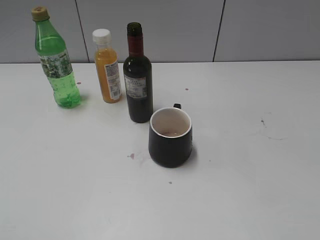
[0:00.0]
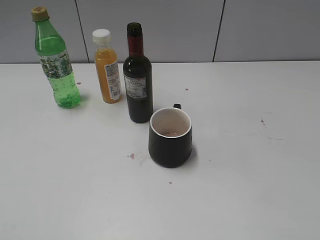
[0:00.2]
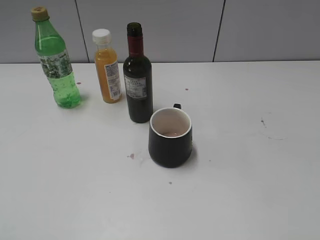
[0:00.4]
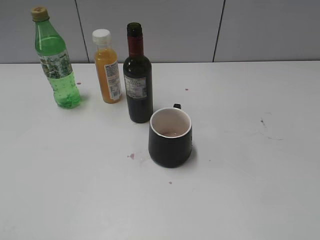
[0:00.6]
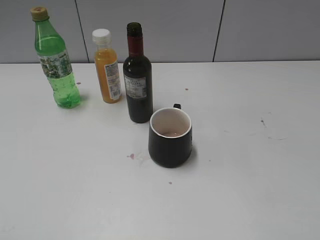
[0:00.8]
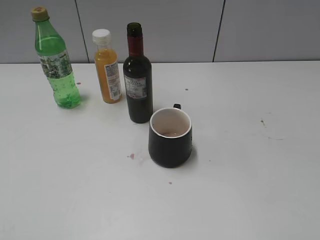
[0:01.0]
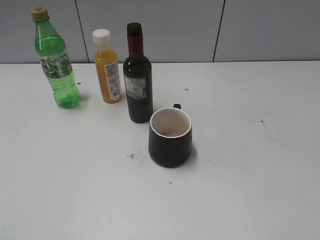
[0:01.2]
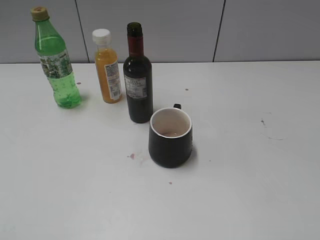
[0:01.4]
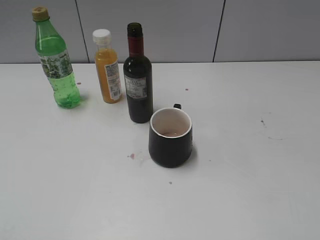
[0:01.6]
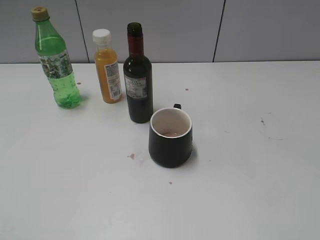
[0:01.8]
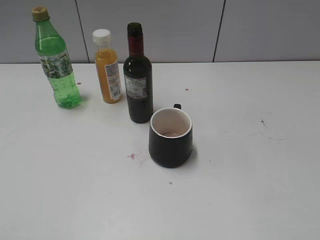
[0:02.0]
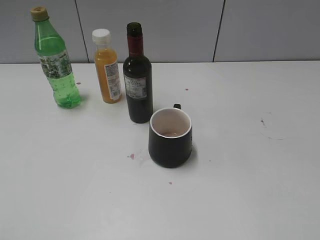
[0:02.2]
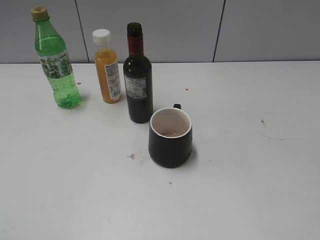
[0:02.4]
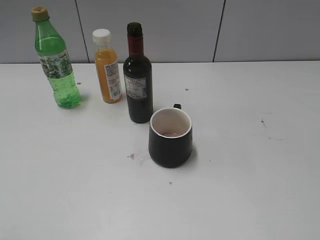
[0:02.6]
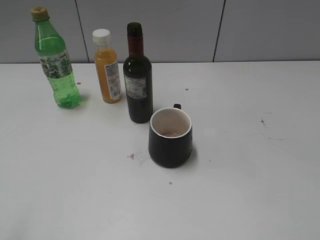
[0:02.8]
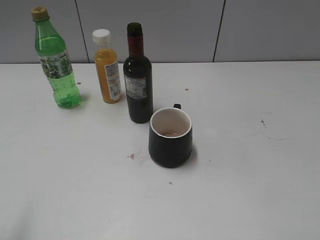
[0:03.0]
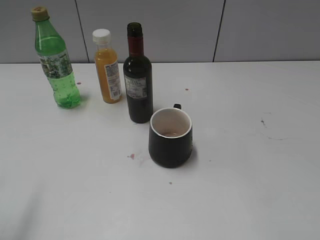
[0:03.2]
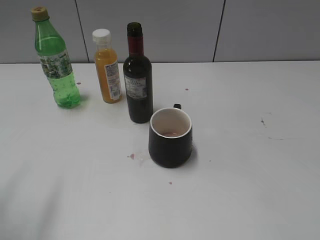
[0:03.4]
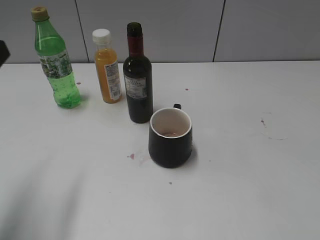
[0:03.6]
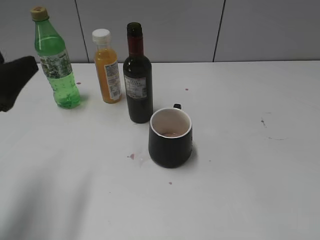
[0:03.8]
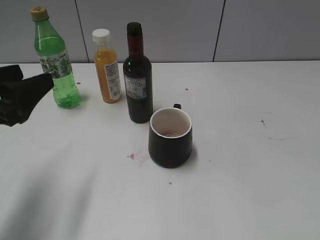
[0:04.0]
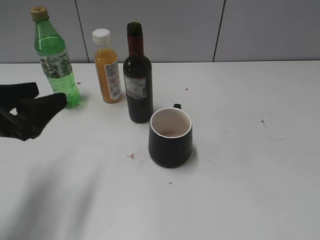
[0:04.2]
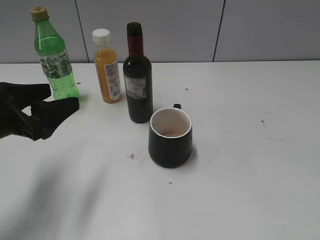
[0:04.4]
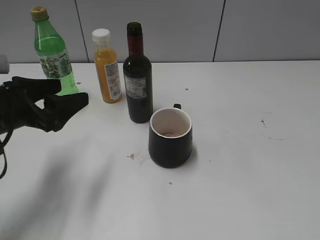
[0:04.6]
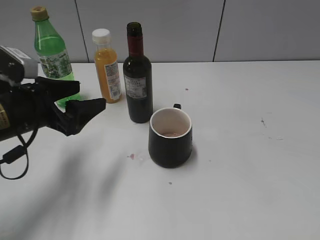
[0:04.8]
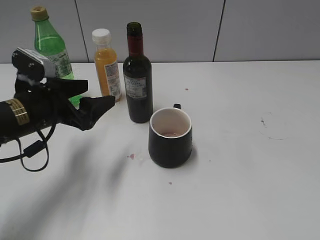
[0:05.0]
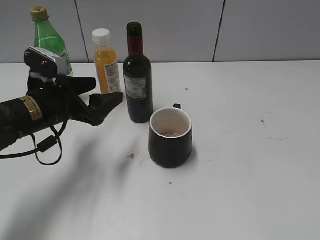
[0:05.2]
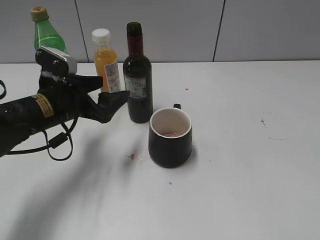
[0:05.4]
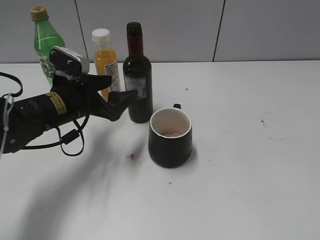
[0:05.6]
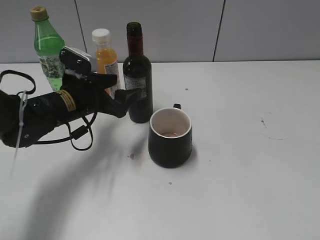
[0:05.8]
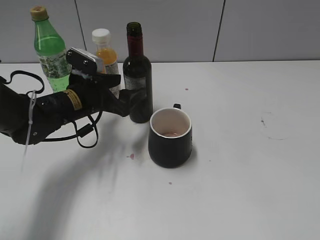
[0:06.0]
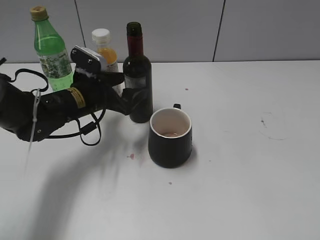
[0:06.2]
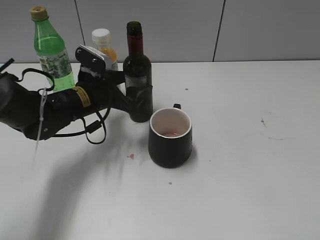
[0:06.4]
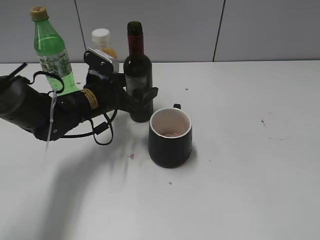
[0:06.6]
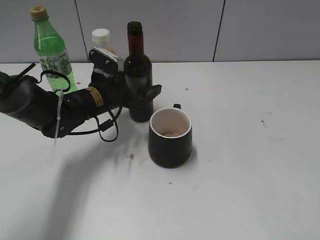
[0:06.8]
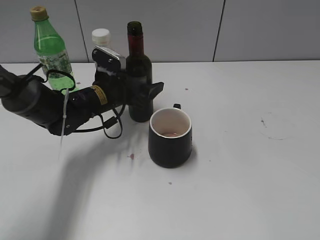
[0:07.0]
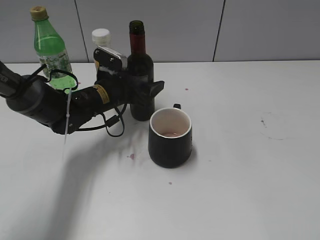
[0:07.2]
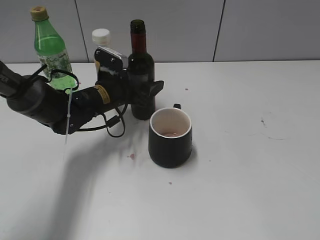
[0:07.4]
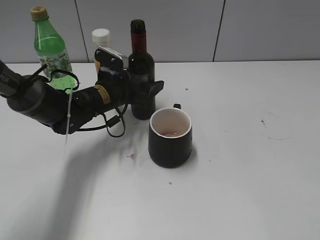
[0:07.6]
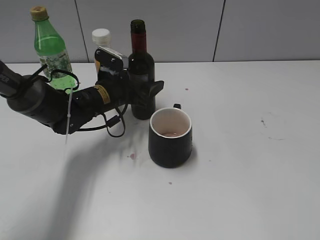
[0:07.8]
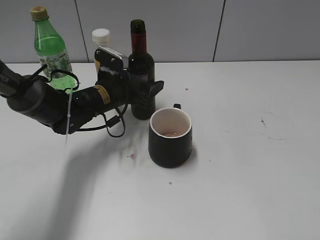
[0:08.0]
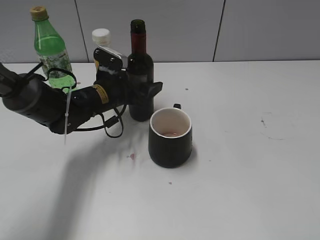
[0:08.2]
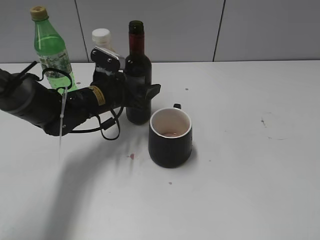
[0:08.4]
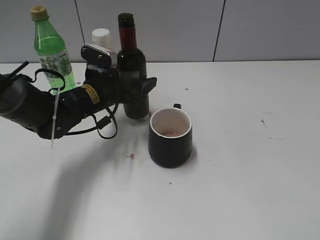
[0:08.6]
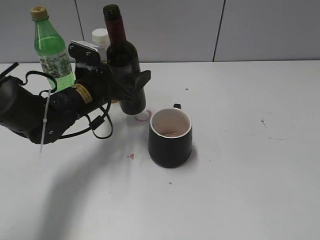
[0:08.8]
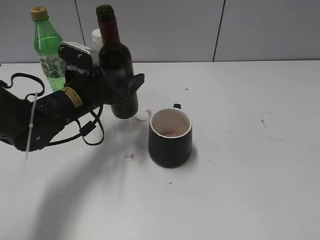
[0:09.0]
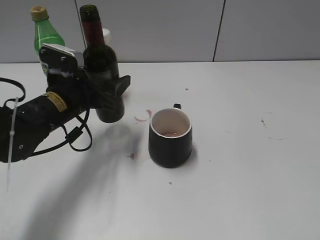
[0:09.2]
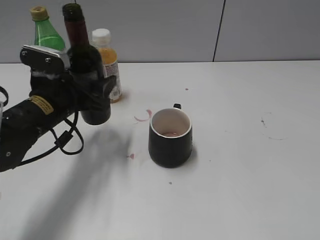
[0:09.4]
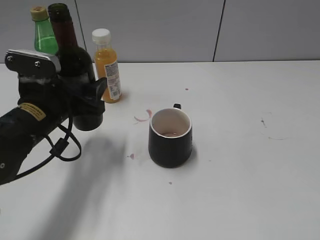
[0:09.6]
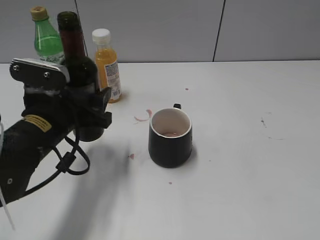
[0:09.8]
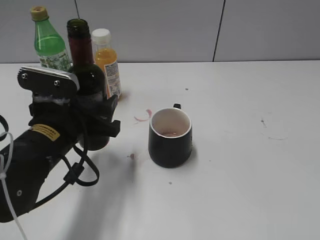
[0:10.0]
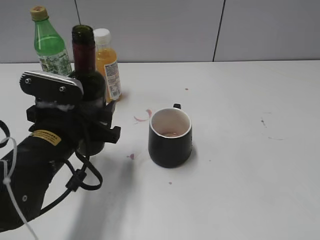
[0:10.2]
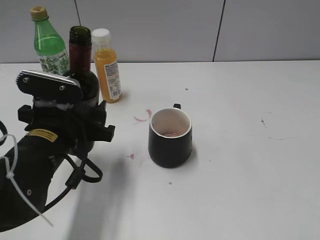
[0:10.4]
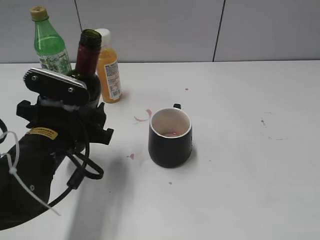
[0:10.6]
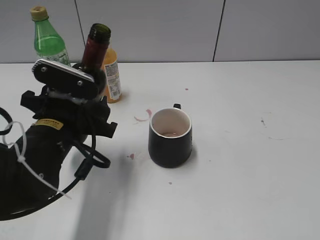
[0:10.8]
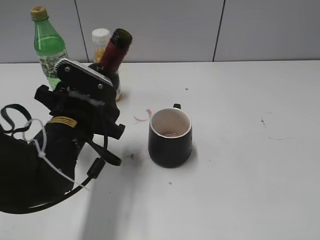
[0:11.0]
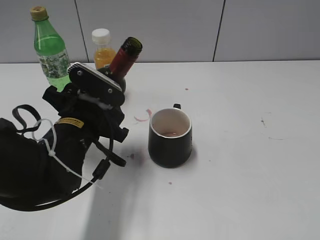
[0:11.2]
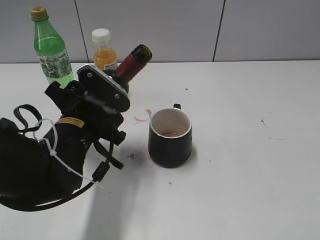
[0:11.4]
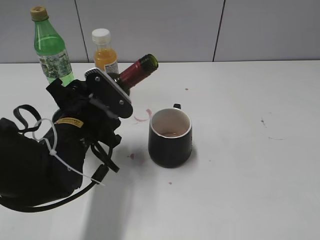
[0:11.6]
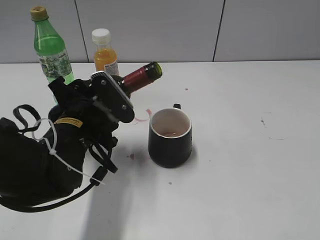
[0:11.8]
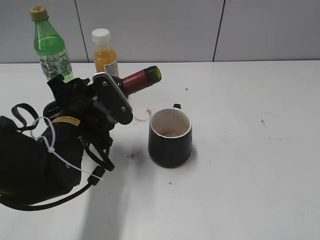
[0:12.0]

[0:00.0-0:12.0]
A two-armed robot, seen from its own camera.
Step, 0:00.0 to 0:08.2: Grasp the bottle with red wine with left gripper.
0:00.0 to 0:01.6: Neither gripper changes place.
0:03.0 to 0:04.4: The left gripper travels forward, downward and to the right by roughly 20 cm.
0:04.4 to 0:06.0: The left gripper shifts roughly 15 cm forward, to the right and downward.
0:06.0 to 0:07.6: The left gripper ends up roughly 5 cm from where it was, and closes up.
0:07.6 to 0:09.0: The left gripper is displaced backward by approximately 5 cm.
0:09.0 to 0:10.4: The left gripper is displaced backward by roughly 10 cm.

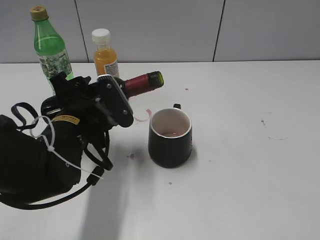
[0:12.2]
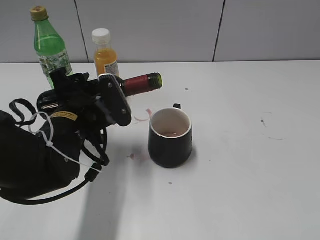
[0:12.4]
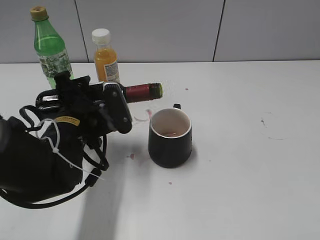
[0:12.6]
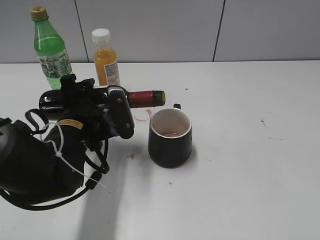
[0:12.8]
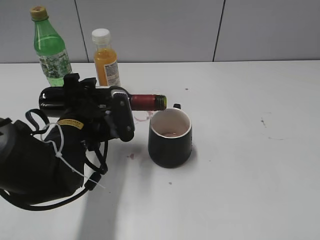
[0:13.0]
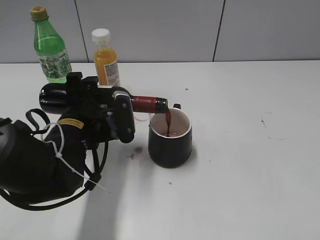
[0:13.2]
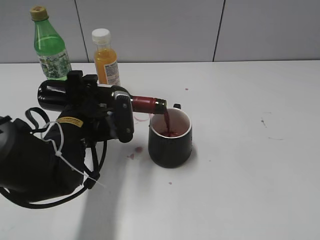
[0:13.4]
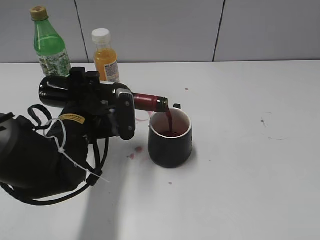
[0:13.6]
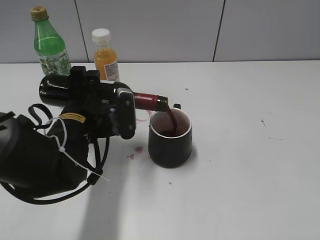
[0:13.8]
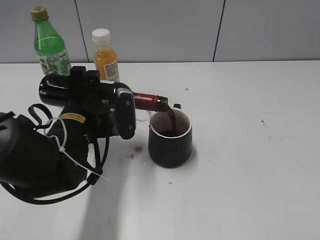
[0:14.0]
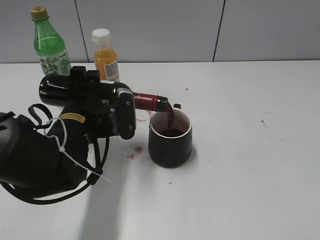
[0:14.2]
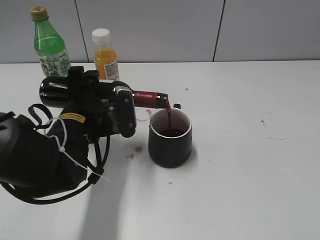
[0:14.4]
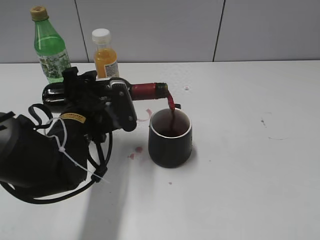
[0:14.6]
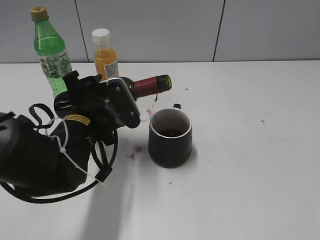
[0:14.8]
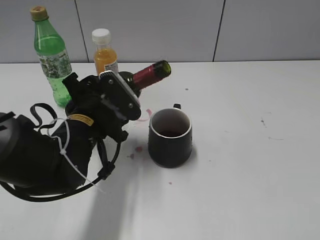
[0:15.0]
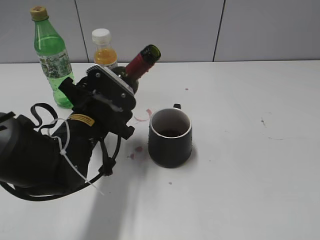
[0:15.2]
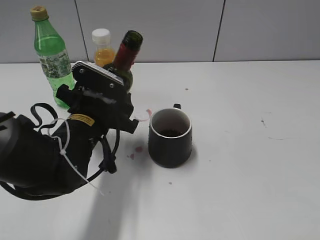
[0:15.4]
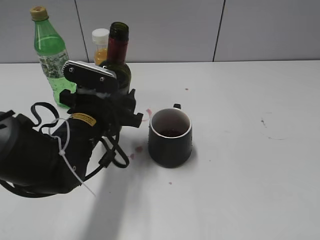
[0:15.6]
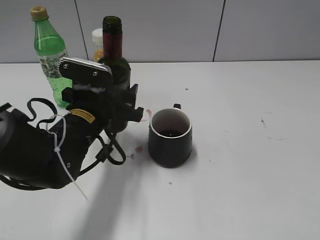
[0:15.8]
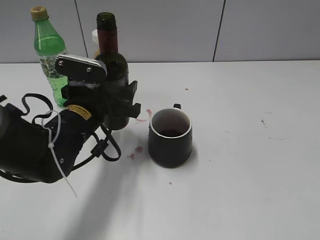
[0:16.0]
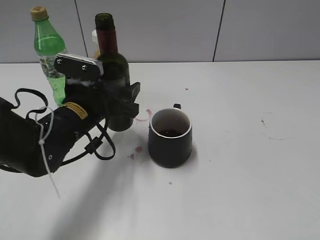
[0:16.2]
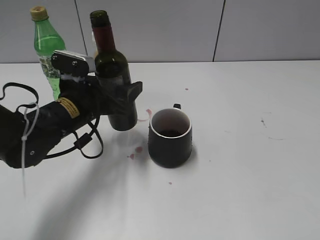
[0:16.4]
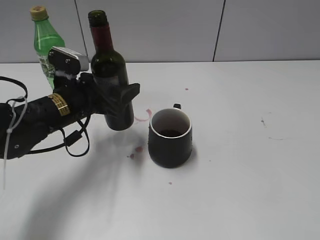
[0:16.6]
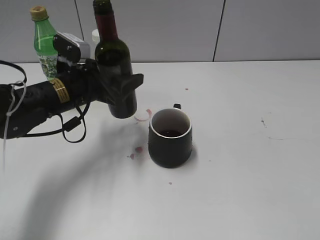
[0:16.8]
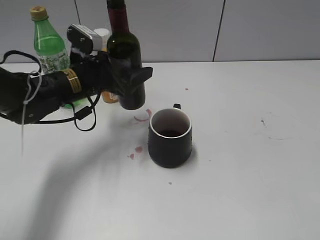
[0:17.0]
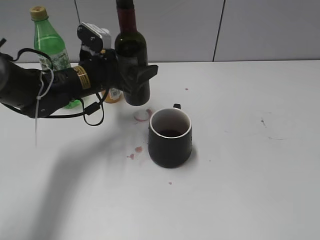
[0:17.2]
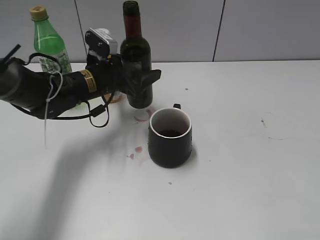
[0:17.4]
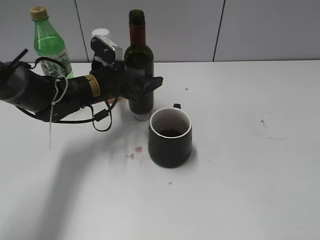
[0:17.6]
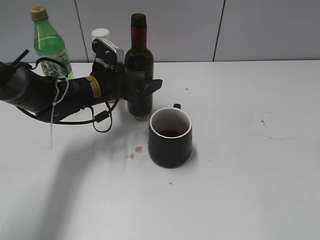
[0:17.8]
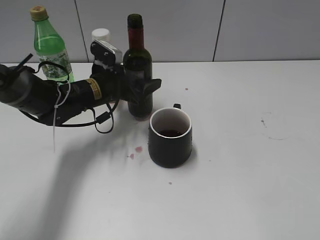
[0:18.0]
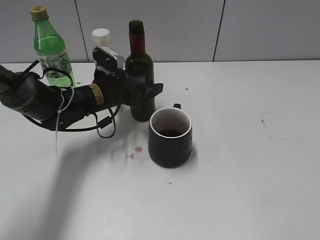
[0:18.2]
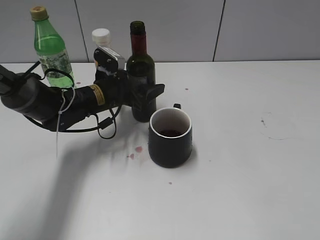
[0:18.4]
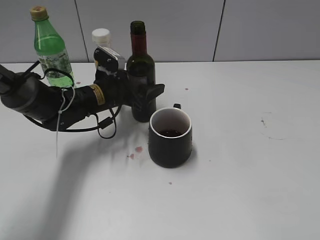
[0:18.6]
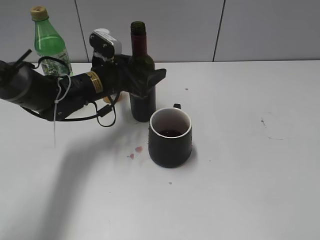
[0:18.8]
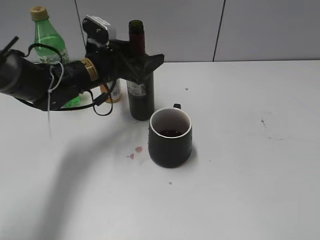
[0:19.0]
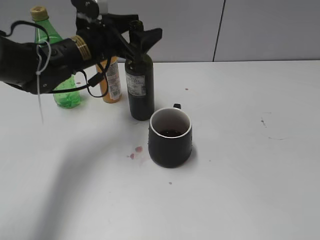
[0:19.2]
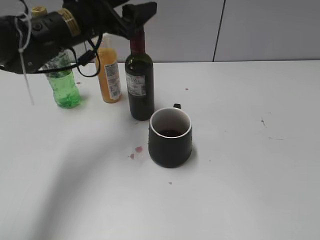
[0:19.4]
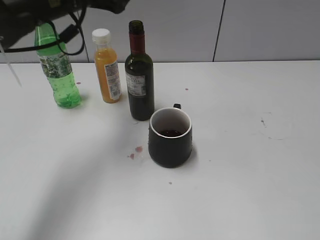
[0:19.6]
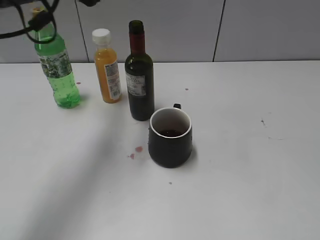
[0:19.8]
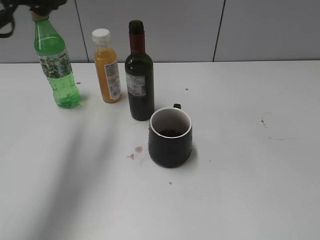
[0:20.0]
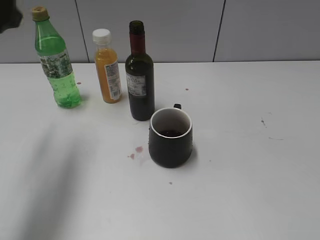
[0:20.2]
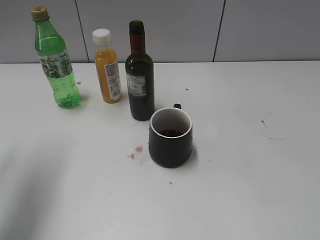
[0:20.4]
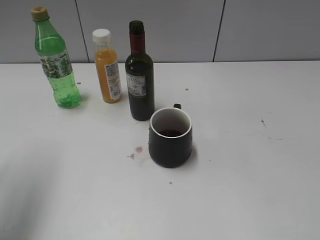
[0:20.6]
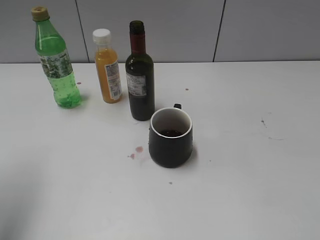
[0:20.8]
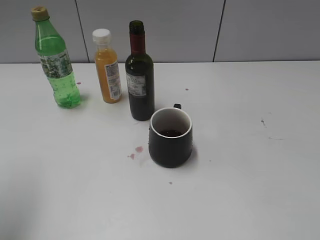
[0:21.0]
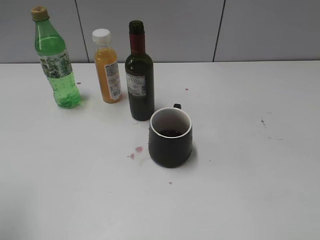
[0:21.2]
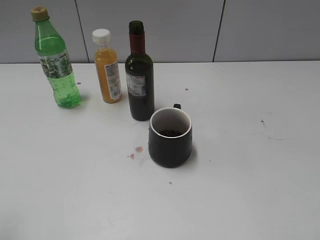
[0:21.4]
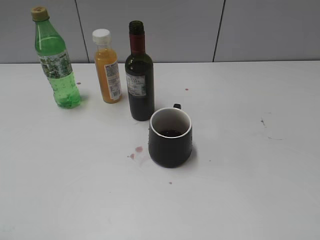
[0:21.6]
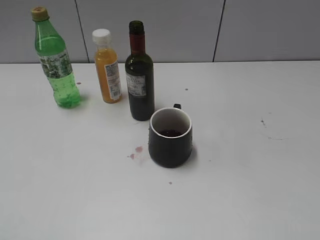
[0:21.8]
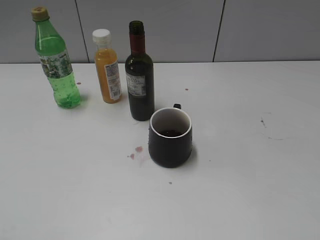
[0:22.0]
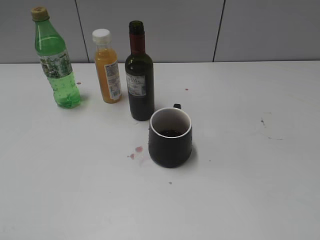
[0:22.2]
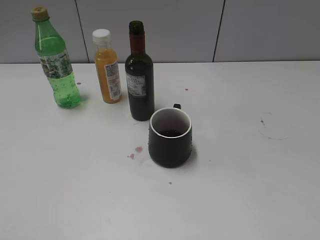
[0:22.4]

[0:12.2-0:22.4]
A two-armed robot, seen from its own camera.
Step, 0:12.2 to 0:15.0: Pour the red wine from bottle to cup with left gripper.
Step, 0:15.2 to 0:18.8: Place the red wine bottle on the table with left gripper.
0:15.2 to 0:16.6: The left gripper moves about 5 cm.
0:16.6 to 0:18.0: The left gripper moves forward, approximately 10 cm.
0:18.0 to 0:19.4: The left gripper goes roughly 15 cm upward, and opens.
0:19.4 to 0:21.0: The left gripper moves backward, to the left and upward, roughly 25 cm.
0:21.0 to 0:22.4: The left gripper travels backward by about 20 cm.
